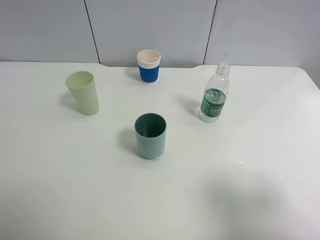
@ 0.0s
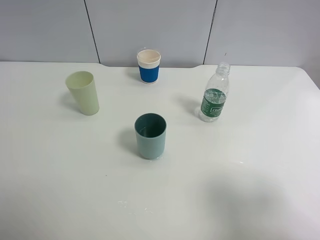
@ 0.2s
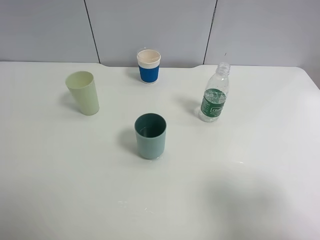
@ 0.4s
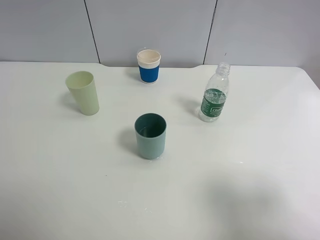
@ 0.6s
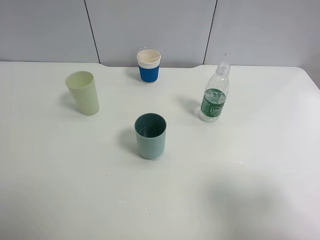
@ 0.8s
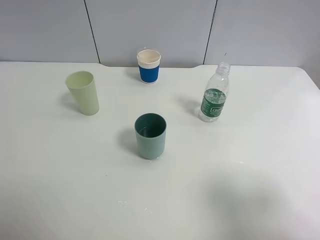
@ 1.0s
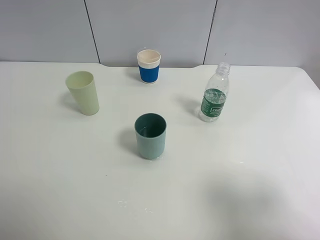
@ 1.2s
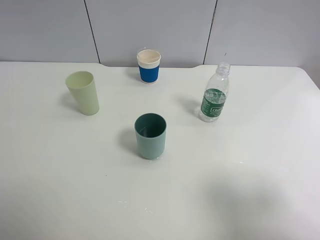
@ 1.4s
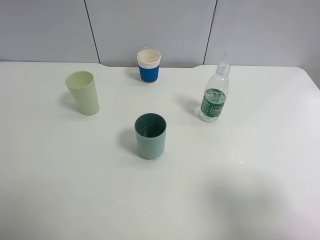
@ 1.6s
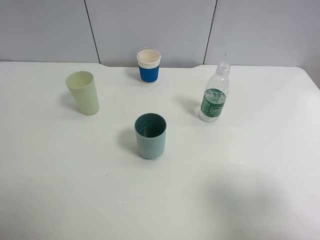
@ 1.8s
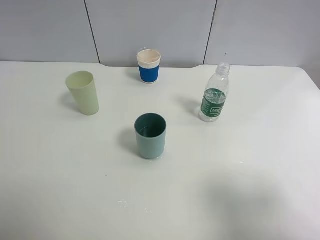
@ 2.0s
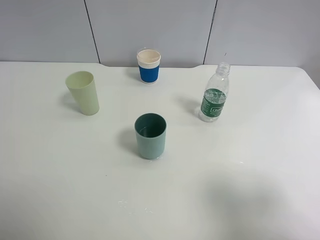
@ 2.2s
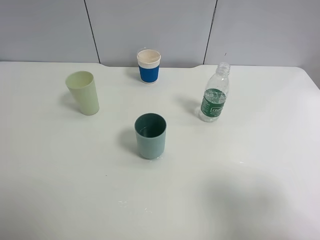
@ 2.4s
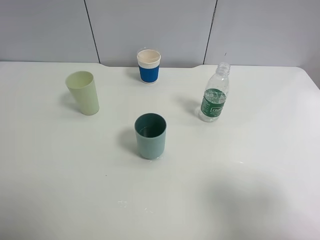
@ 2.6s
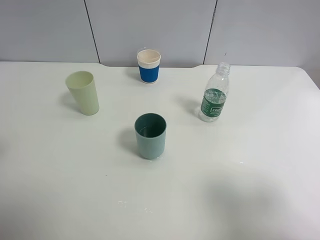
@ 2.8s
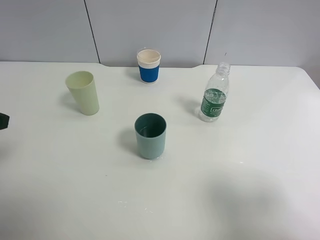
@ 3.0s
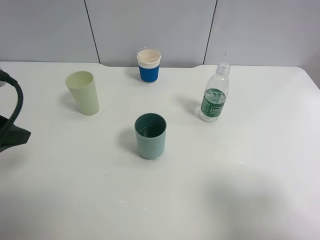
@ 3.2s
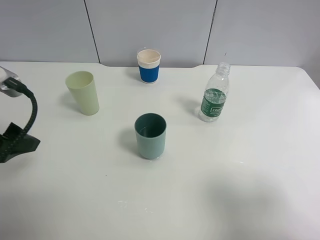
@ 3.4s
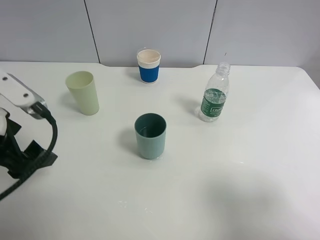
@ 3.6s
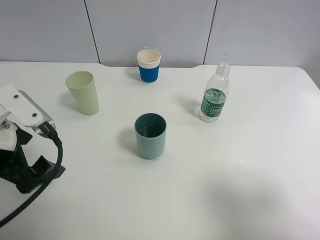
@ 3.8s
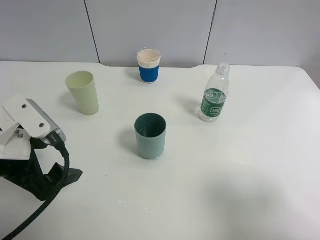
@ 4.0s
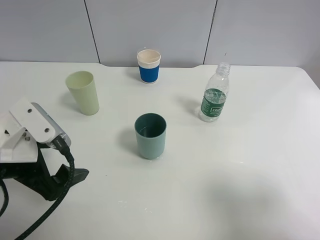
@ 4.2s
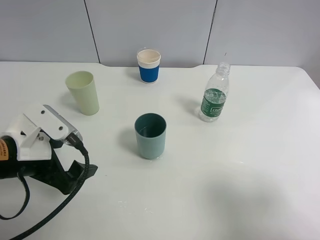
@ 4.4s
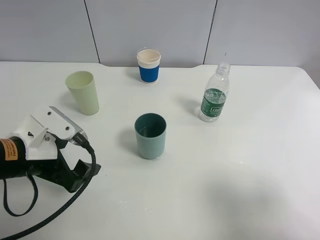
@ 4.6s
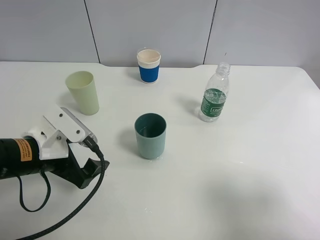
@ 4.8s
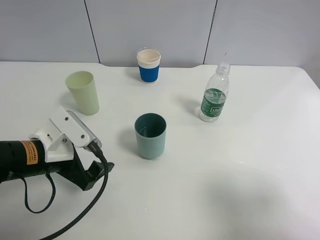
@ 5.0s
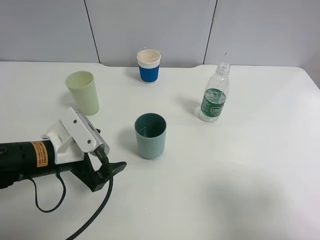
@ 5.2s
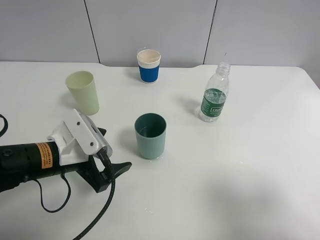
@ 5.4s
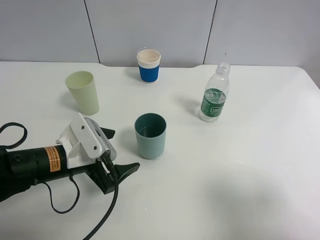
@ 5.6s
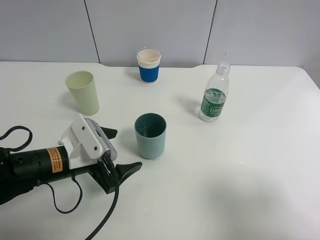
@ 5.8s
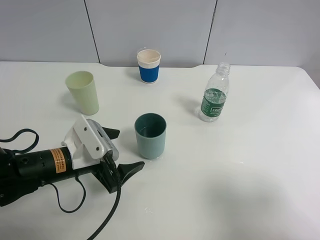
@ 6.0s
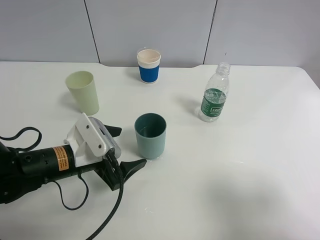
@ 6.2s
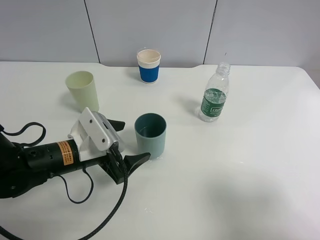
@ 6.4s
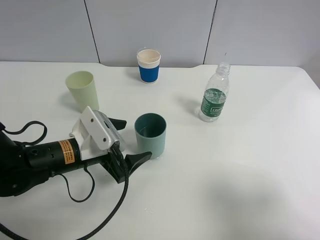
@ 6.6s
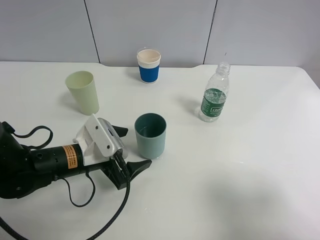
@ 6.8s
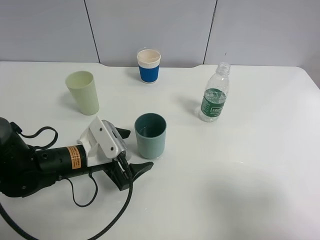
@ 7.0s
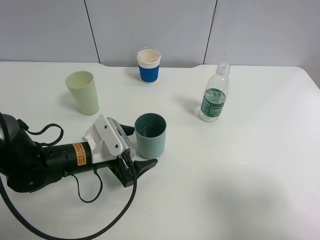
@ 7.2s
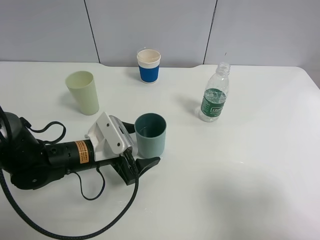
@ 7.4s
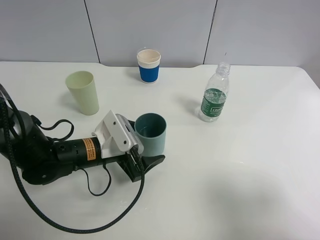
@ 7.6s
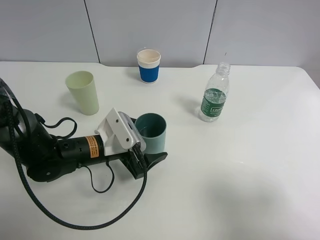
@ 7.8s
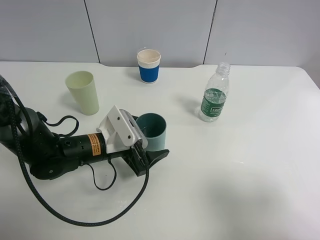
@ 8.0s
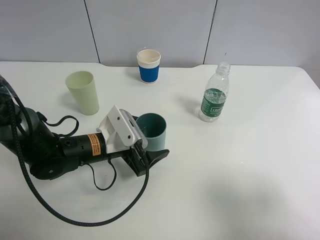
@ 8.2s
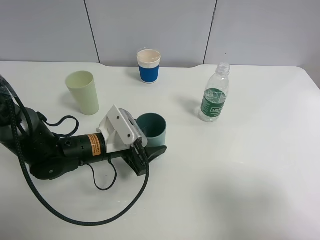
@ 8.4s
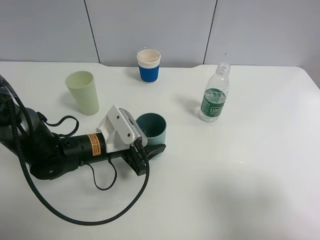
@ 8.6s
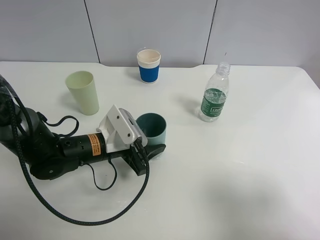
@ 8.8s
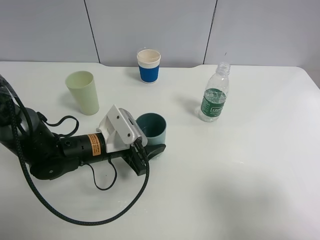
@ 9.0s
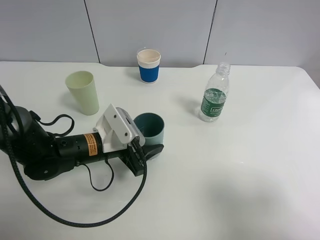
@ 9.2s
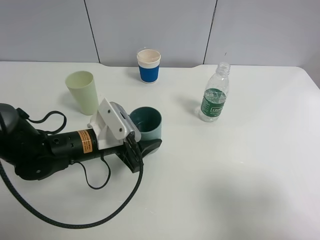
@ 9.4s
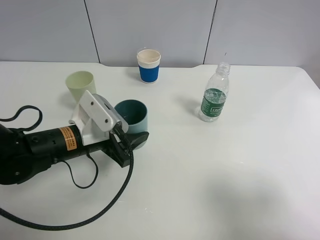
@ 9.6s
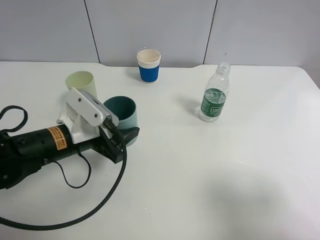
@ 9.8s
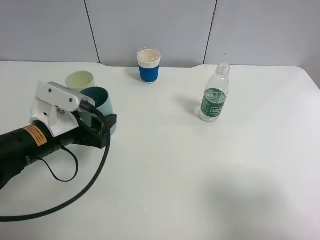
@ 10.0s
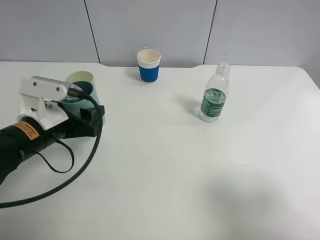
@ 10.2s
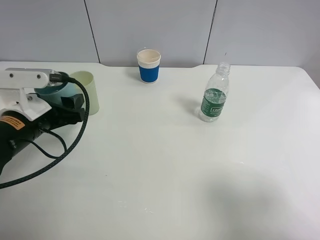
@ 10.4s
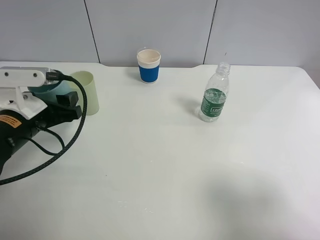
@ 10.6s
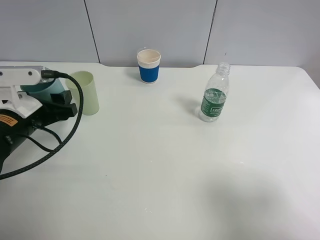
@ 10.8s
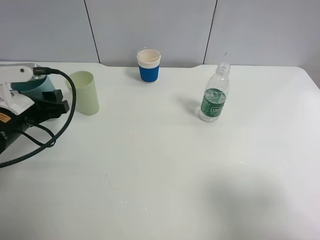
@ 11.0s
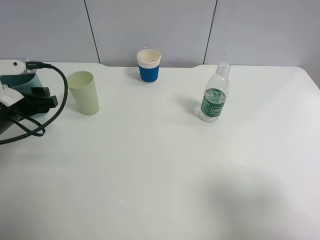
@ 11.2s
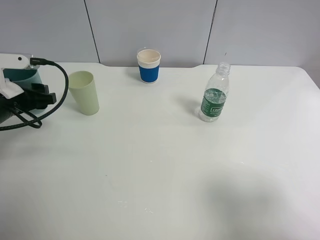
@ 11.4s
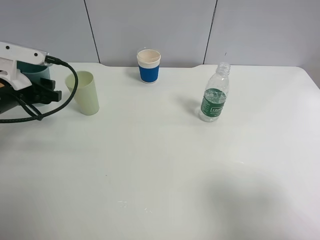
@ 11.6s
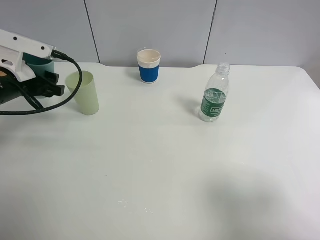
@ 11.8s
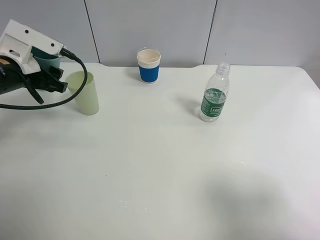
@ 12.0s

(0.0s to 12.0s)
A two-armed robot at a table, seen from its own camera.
Task of the whole recording: use a clamp to hold the bottle of the drink, pour the beverage into a random cup, then clamp the cup containing the drink and pour the drink into another random cup.
Step, 0.0s - 9.4s: Pick up the blue plastic cup bottle with left gripper.
0.0s - 1.6s: Both grippers stay about where they are.
3.0s - 4.4s: The left gripper shifts roughly 15 cm downward and to the right.
4.4s - 6.0s: The left gripper shifts roughly 10 cm downward and to the right.
6.0s - 7.6s: The left gripper changes place by about 5 cm.
7.6s - 9.0s: The left gripper closes its fingers.
9.0s - 10.4s: The left gripper shifts approximately 15 cm to the left and upward.
10.4s - 12.0s: The left gripper is displaced forward by about 10 cm.

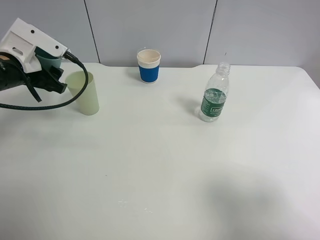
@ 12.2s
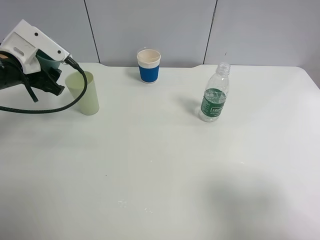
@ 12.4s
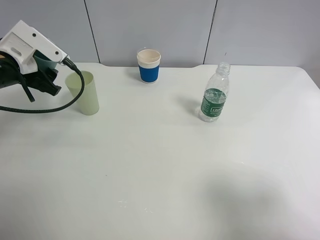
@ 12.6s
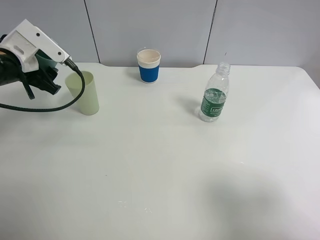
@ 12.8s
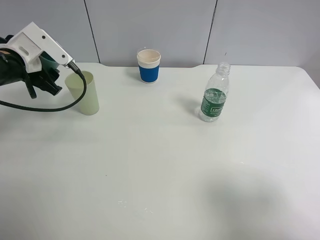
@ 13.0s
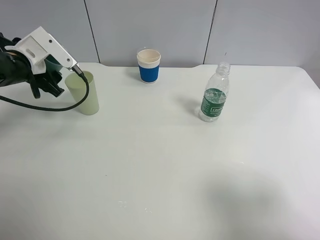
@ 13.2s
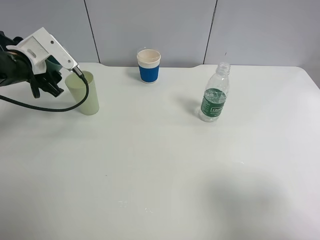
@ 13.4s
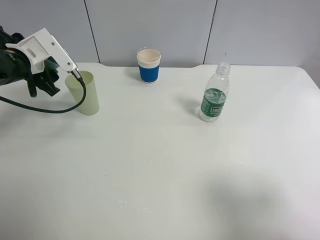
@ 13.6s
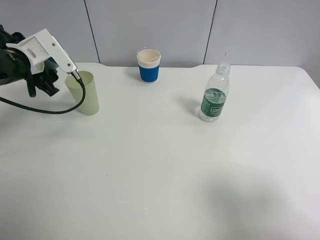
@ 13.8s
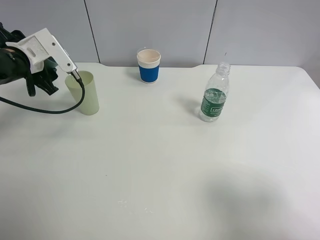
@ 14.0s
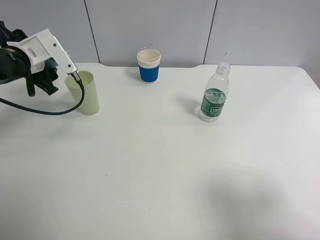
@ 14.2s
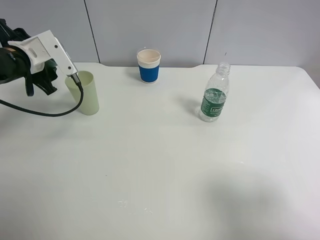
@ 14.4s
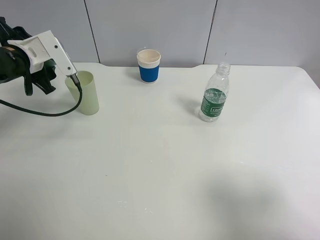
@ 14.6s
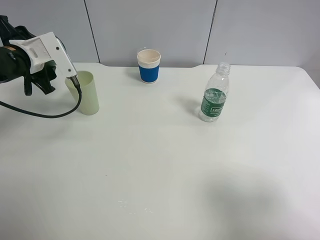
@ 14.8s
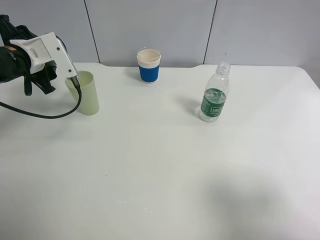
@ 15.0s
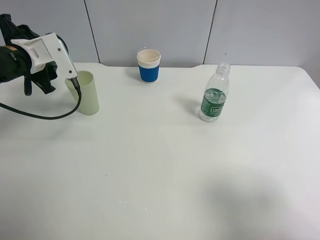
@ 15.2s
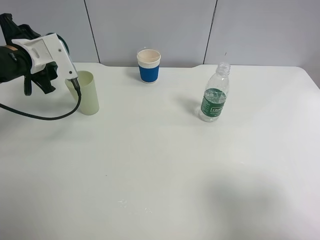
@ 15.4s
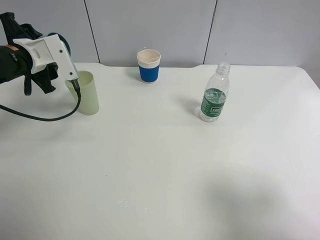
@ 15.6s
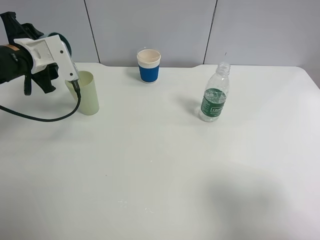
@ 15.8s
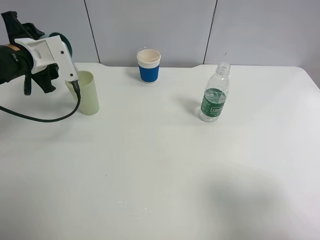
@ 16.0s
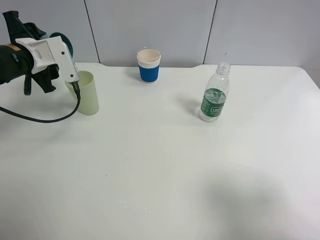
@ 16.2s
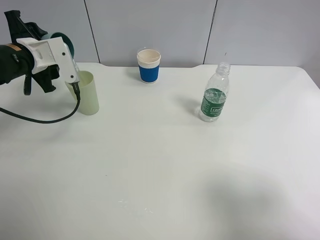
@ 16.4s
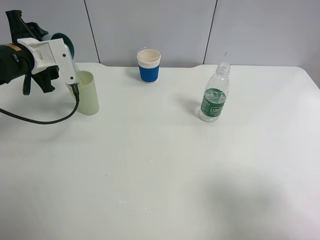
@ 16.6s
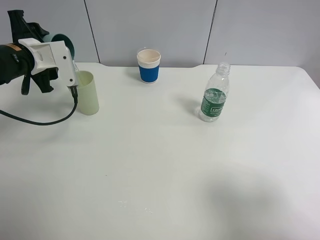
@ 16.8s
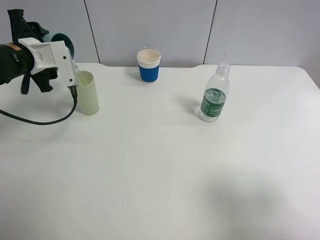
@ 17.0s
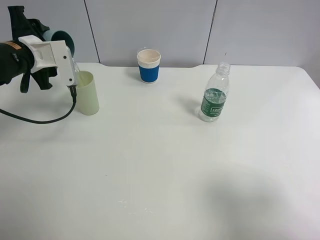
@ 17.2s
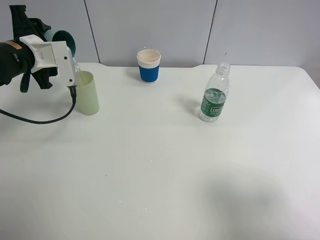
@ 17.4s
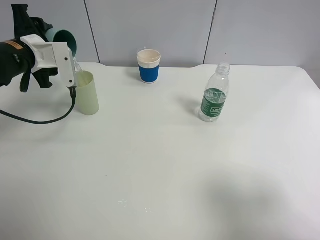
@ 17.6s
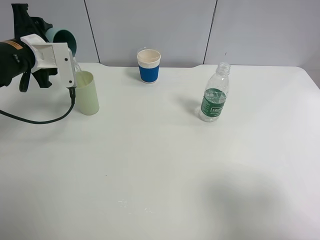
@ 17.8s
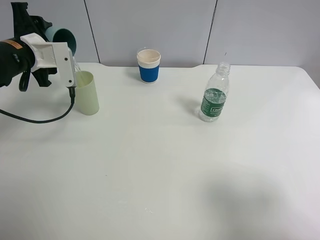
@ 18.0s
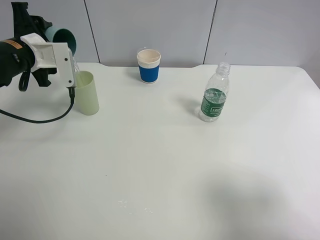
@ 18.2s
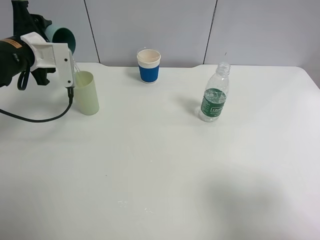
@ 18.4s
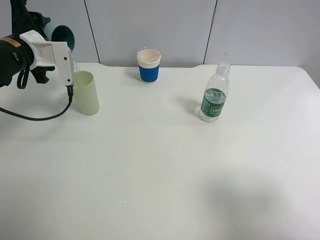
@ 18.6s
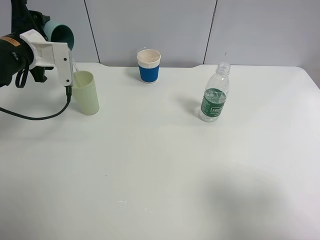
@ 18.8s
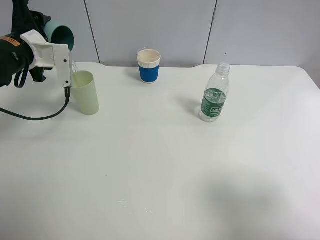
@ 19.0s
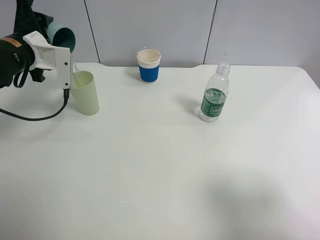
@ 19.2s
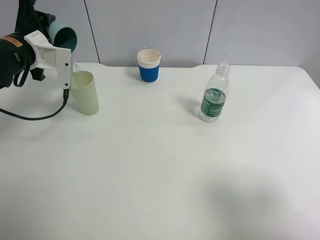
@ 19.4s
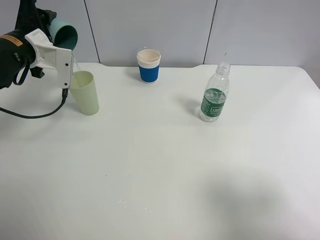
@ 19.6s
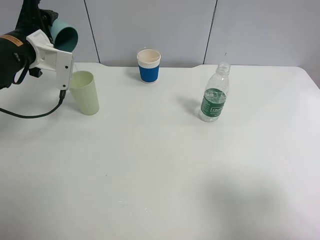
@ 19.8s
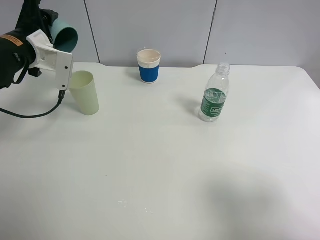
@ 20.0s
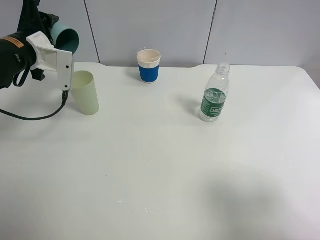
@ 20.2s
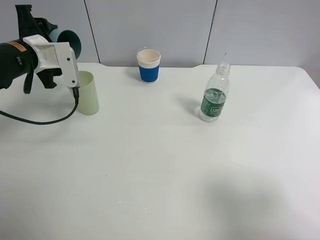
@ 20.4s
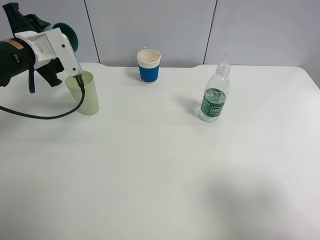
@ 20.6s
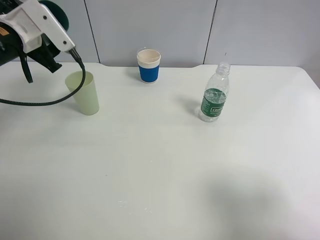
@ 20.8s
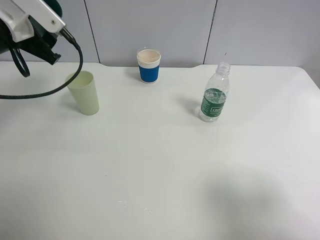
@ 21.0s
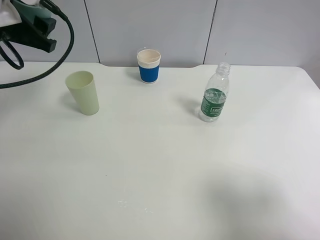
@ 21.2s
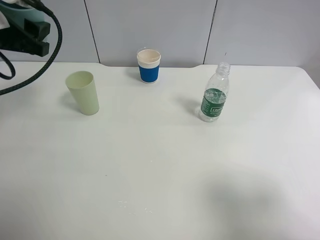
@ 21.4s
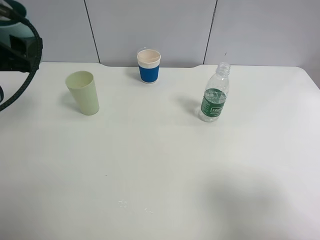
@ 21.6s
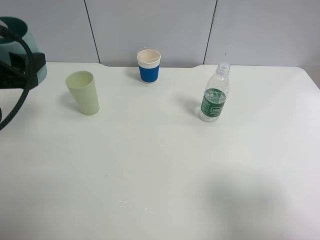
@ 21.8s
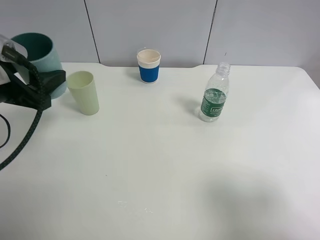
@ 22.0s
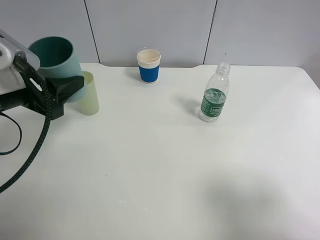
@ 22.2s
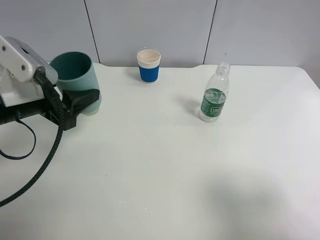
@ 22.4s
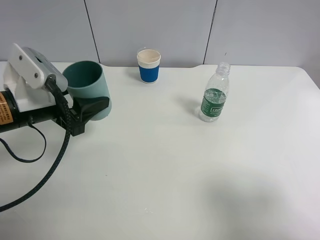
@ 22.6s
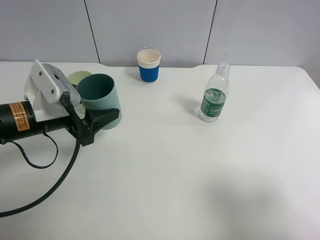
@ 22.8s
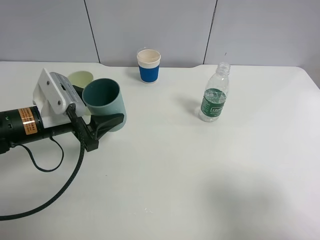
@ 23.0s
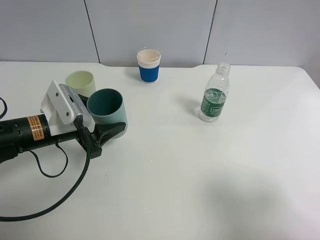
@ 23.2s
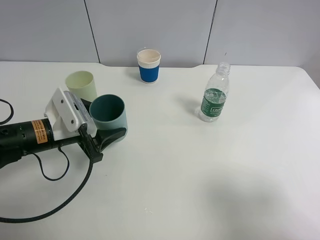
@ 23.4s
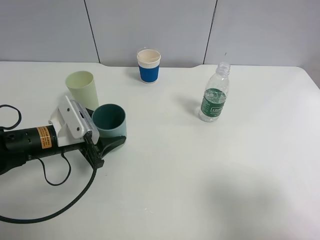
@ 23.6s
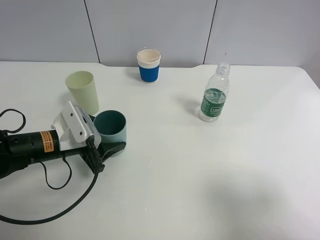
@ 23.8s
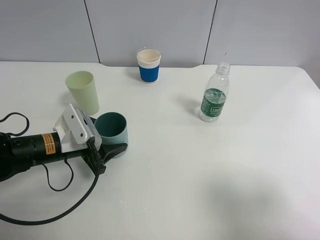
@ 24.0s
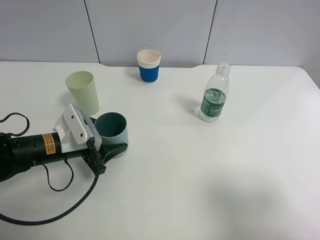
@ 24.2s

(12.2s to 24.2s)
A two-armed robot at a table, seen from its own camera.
Task of the whole recording: use a clamp to hold the bottle of the drink, pour the beverage into a random cup, then clamp the cup containing the drink and pour the drink into another random cup.
13.8s - 15.2s: The grippers move only a little.
15.2s - 16.6s: The grippers move only a little.
16.6s - 18.2s: The grippers make only small movements.
19.8s - 21.2s: The left gripper moves upward and backward, approximately 10 cm.
21.2s - 22.6s: The left gripper goes some 15 cm downward, backward and to the right.
22.6s - 24.2s: The left gripper shifts roughly 10 cm downward.
